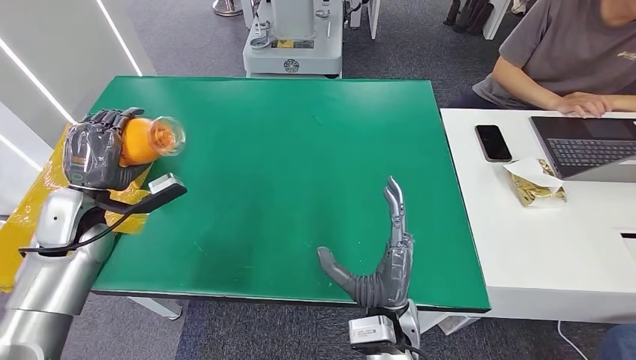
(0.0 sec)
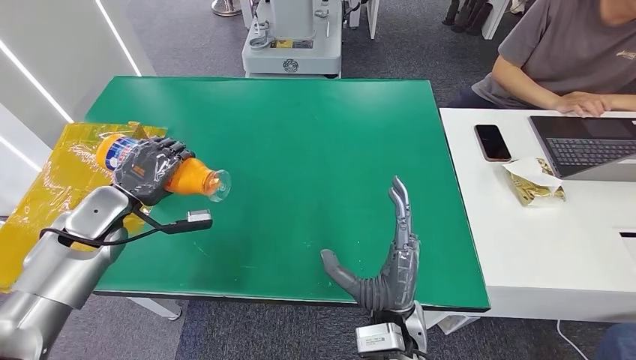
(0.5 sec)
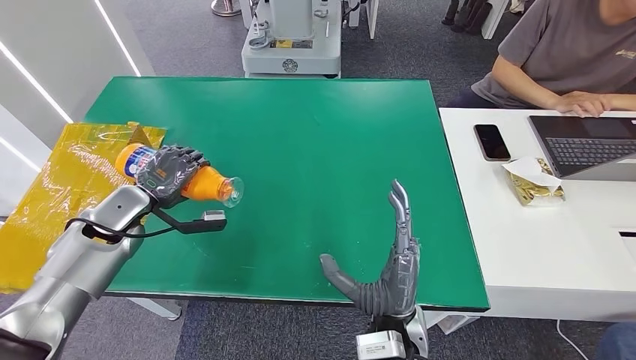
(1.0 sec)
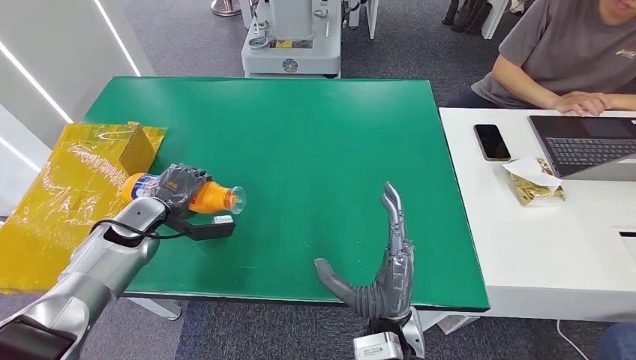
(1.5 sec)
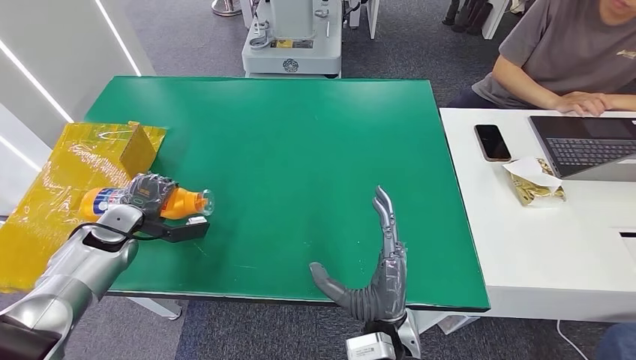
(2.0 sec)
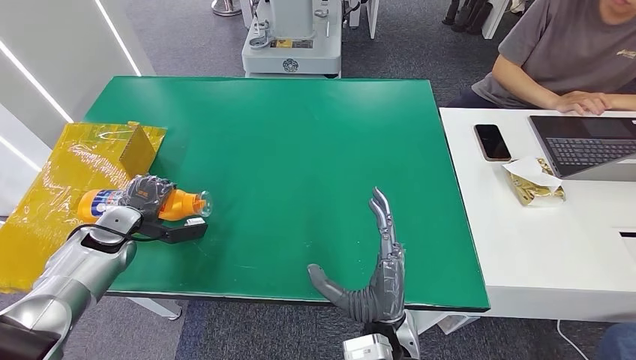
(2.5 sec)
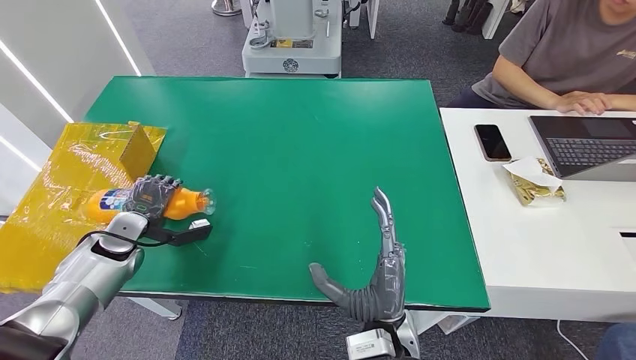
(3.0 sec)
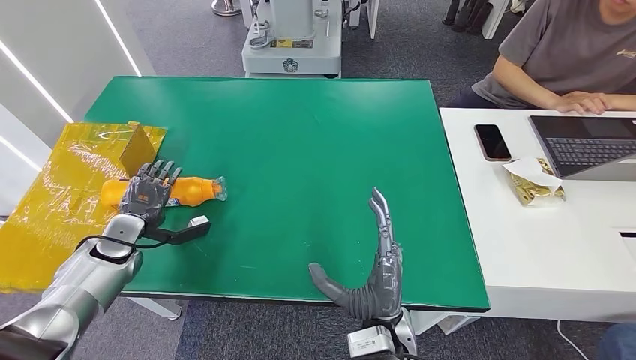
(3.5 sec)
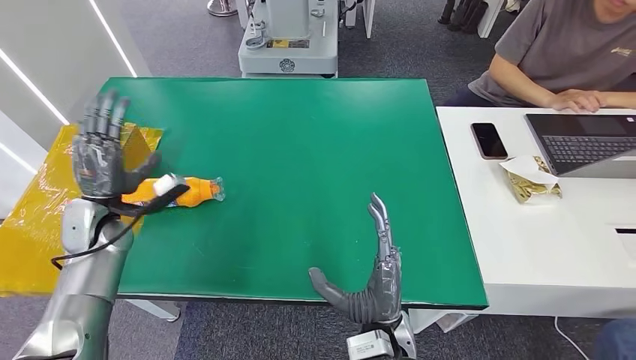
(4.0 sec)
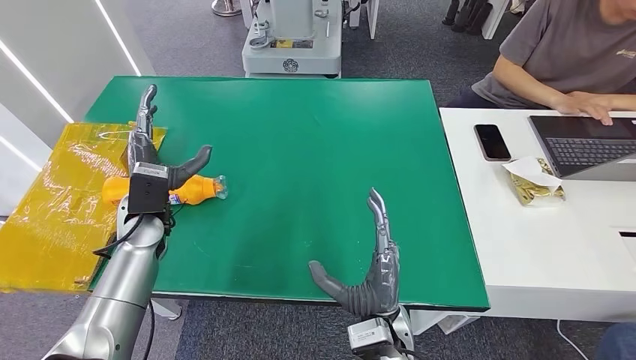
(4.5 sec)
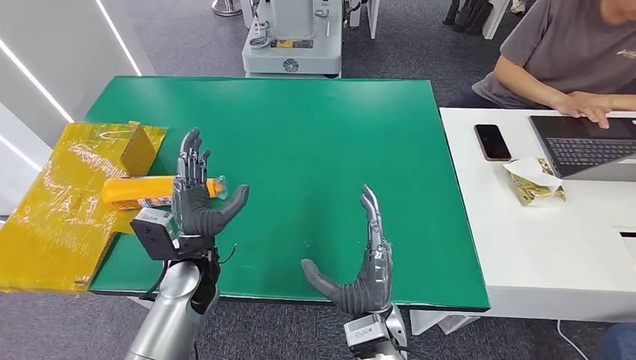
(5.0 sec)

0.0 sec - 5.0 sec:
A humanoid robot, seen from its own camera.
Step, 0.0 sec - 5.0 sec: Turn the bottle to the front side.
0.0 sec - 2.5 sec: The left hand heads downward, covering about 10 cm.
2.5 sec - 5.0 sec: The left hand is displaced to the right by approximately 25 cm.
